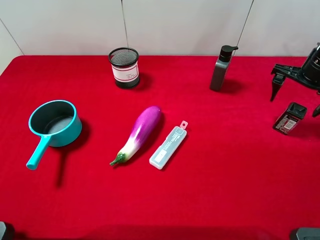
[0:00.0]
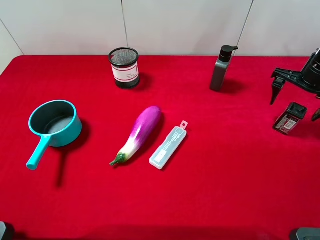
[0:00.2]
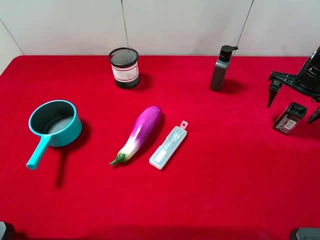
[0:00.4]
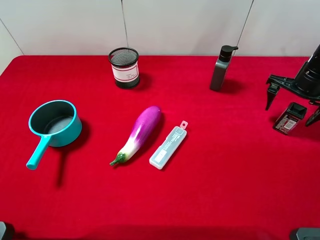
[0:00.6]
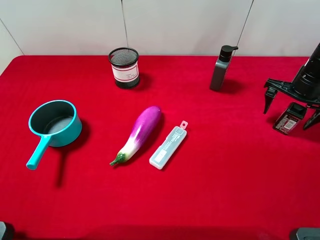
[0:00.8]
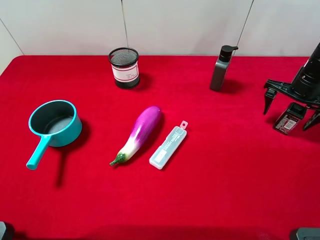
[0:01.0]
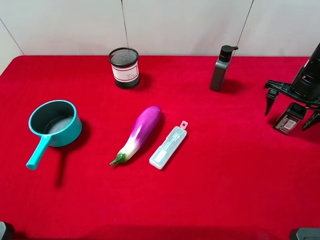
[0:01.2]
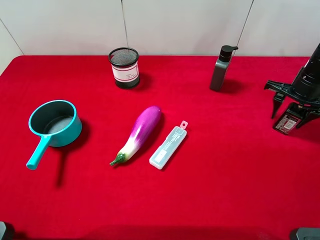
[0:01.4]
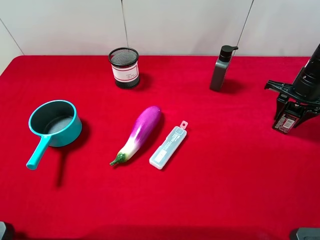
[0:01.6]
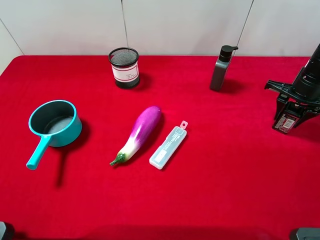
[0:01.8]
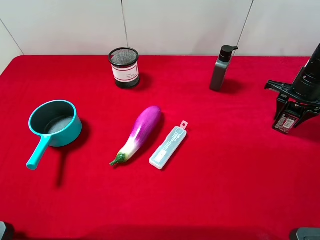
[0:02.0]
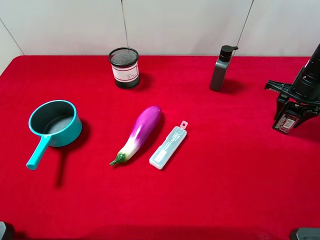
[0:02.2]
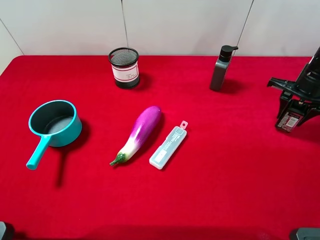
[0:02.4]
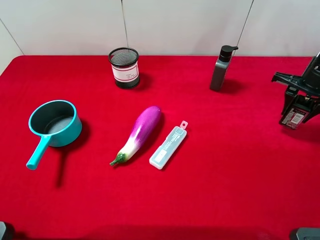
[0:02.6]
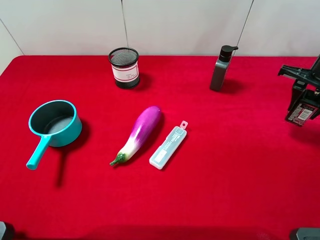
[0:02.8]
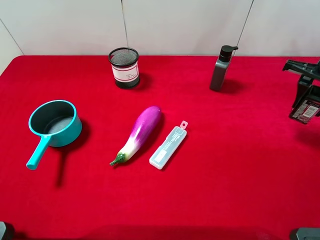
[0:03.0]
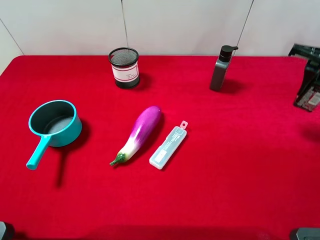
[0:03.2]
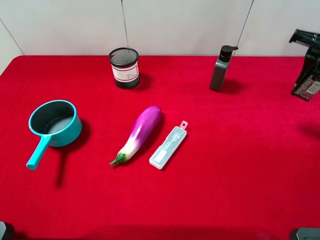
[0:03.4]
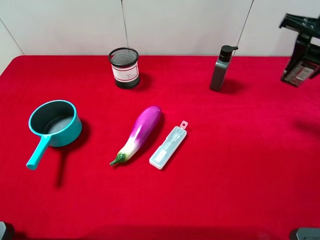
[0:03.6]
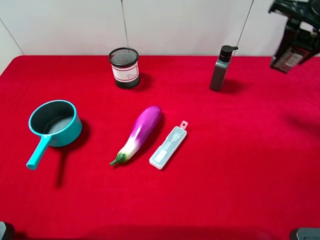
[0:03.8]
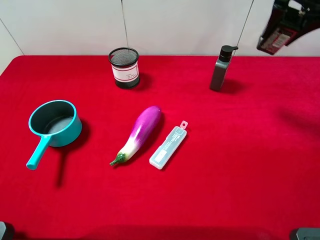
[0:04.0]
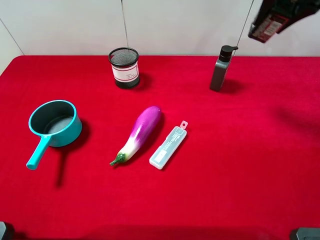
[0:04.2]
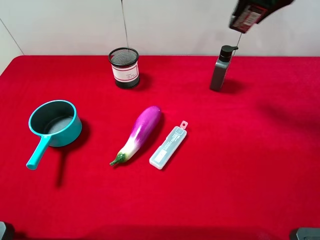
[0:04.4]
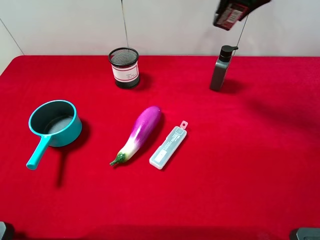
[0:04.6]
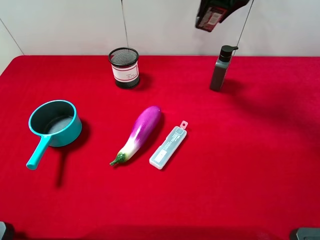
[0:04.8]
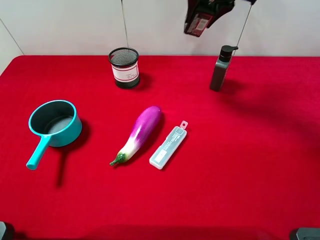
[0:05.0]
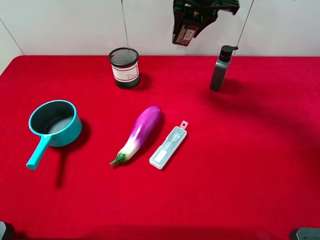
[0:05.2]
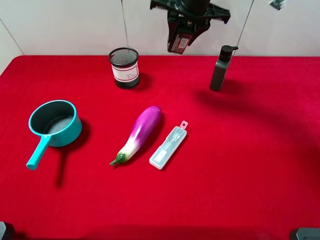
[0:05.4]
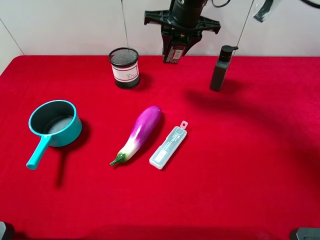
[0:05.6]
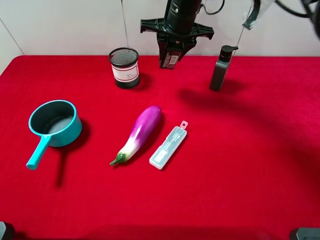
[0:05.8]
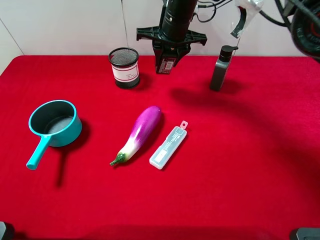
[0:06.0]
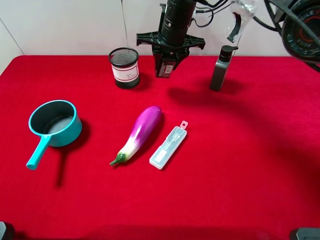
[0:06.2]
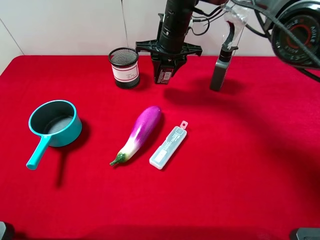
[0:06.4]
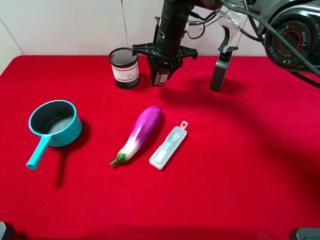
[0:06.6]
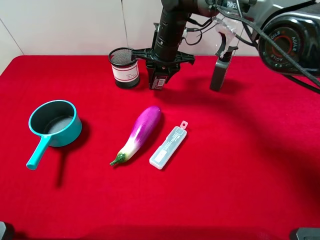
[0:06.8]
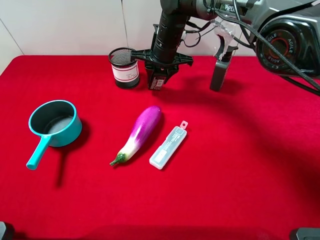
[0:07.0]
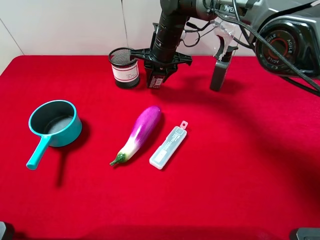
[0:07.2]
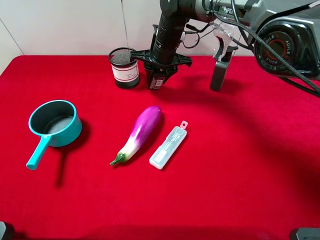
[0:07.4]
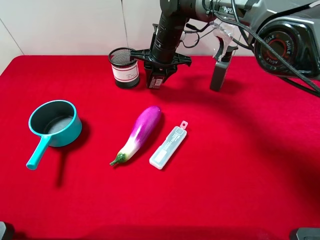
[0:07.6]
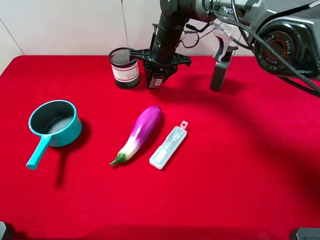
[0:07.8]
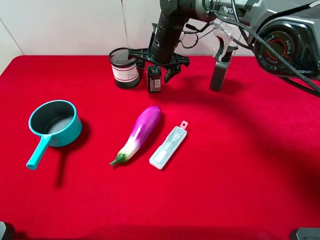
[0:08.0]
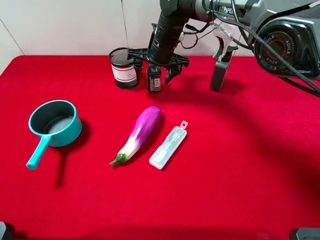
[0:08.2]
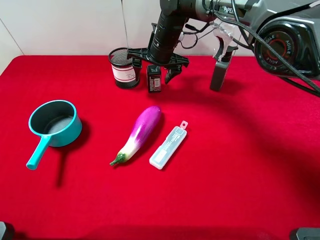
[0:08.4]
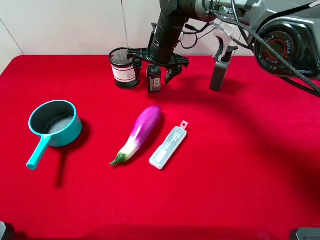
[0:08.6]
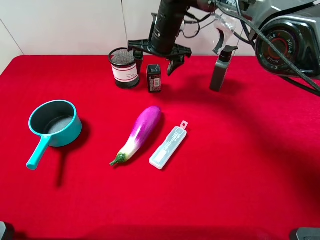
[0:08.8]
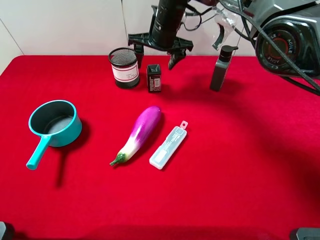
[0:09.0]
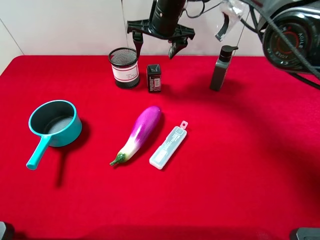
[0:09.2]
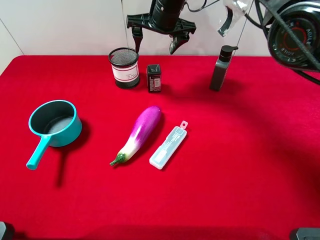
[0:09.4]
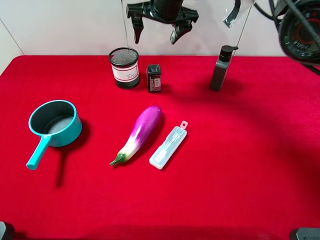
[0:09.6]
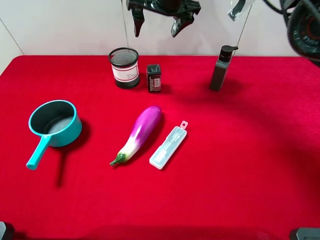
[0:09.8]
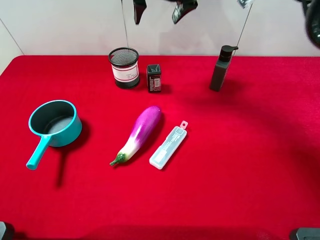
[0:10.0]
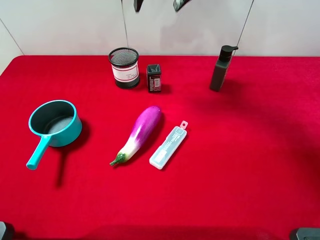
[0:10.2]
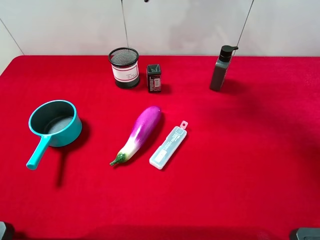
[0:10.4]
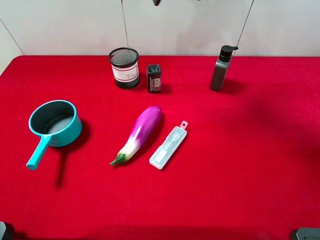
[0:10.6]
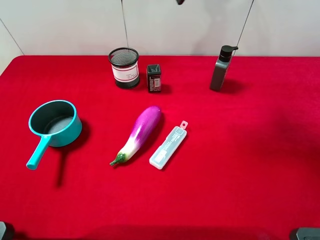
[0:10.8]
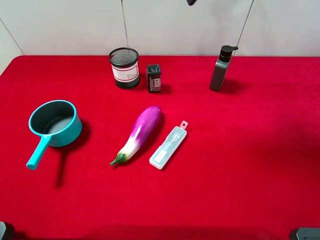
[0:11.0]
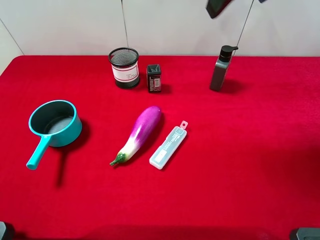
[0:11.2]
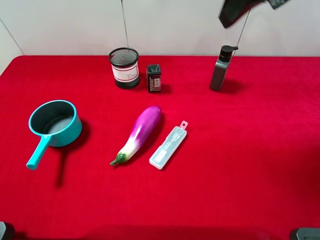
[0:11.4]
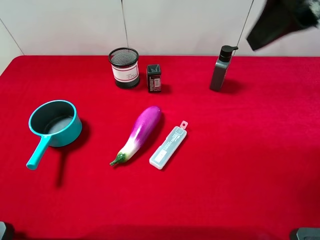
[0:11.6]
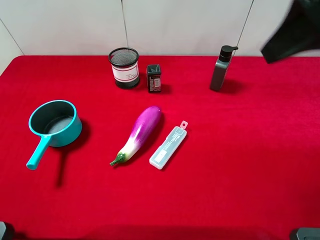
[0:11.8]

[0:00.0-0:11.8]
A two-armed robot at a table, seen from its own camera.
Task of the whole recording: the gripper move the object.
Step, 2.2 to 9.0 s: Place the square chewing gum on the table with the right gripper.
0.0 to 1.4 s: The right gripper closes up.
1.4 to 3.0 s: The right gripper travels upward by about 10 cm.
3.0 to 4.4 s: The right gripper goes about 20 cm to the left and upward.
4.4 to 6.0 s: The right gripper travels to the left, downward and forward by some 20 cm.
6.0 to 7.4 s: The right gripper shifts approximately 5 cm downward.
7.4 to 8.8 s: The right gripper opens up.
8.8 to 10.4 s: The right gripper moves upward, some 20 cm.
10.4 to 11.8 s: The right gripper moves backward and to the right, approximately 25 cm.

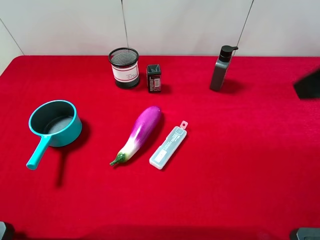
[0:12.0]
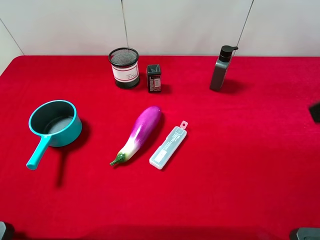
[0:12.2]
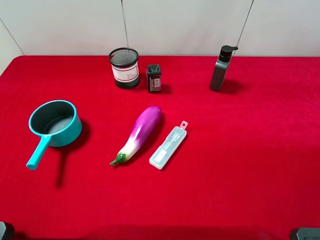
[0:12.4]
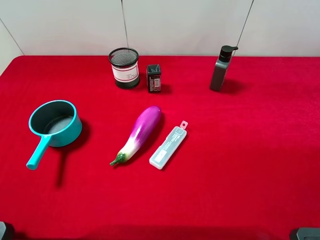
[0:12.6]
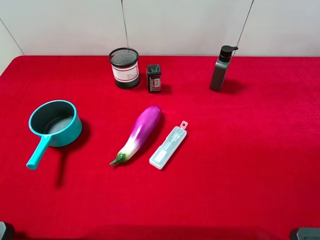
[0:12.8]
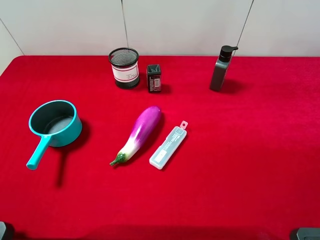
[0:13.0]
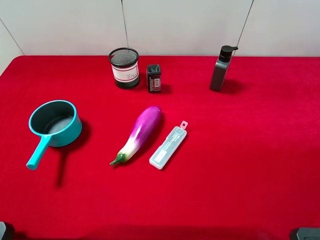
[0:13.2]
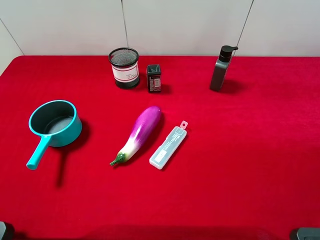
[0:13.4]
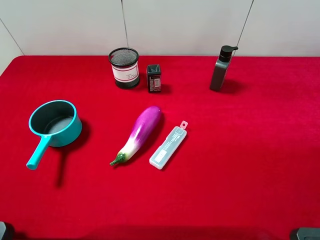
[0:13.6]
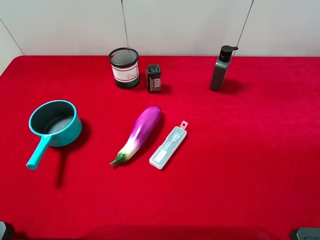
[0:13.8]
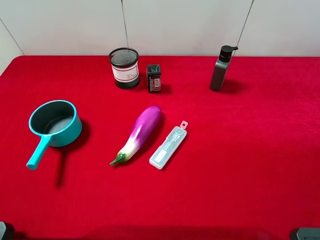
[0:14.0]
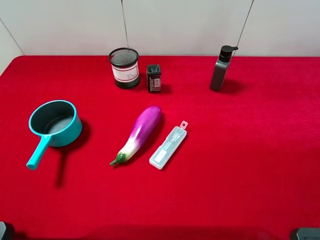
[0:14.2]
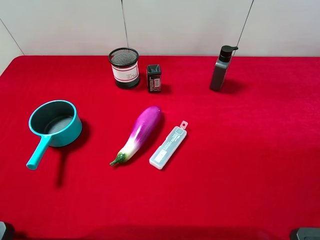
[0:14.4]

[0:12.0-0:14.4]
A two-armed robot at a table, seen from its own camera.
Task of the whole recording: the gripper move the object.
12.0 to 13.2 s: The right gripper shifts approximately 15 cm backward, downward and to the right.
13.2 to 14.4 s: Both grippers stay put.

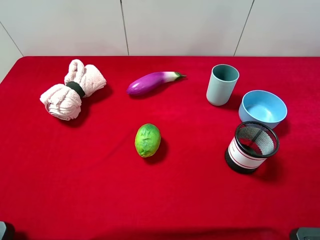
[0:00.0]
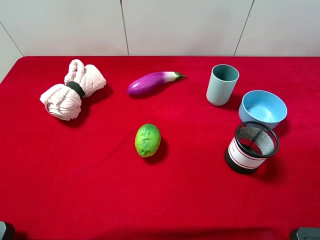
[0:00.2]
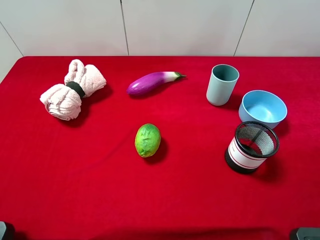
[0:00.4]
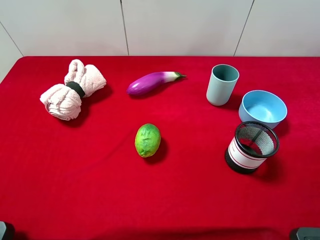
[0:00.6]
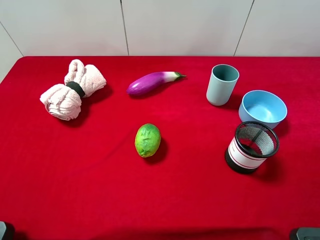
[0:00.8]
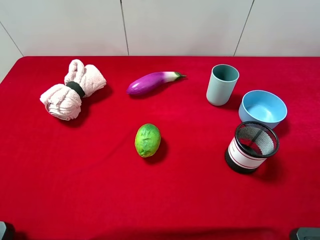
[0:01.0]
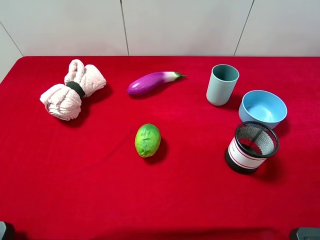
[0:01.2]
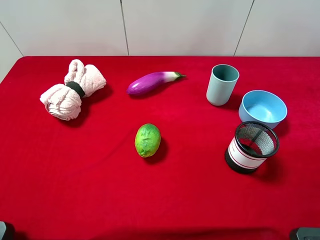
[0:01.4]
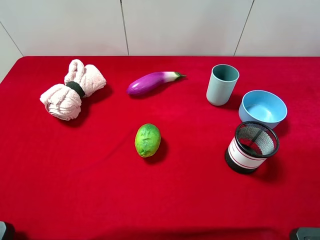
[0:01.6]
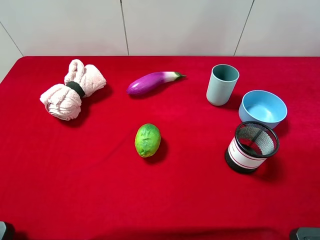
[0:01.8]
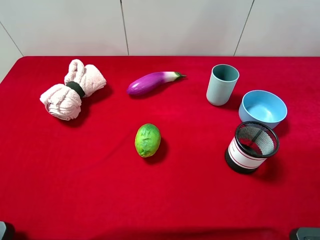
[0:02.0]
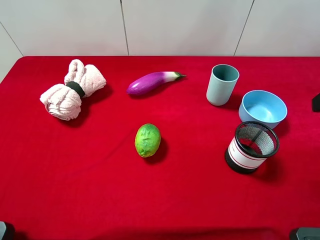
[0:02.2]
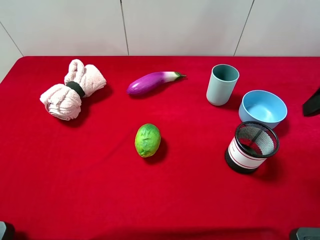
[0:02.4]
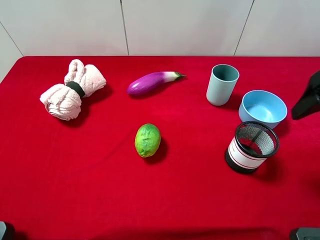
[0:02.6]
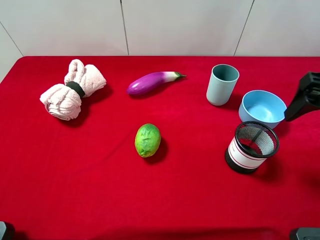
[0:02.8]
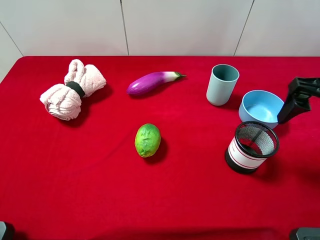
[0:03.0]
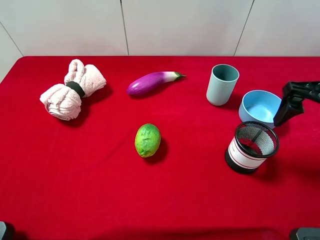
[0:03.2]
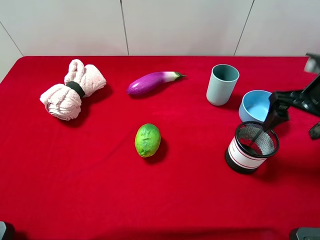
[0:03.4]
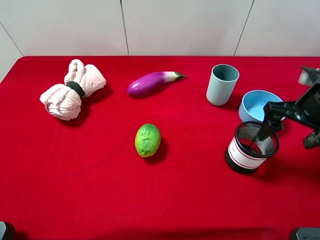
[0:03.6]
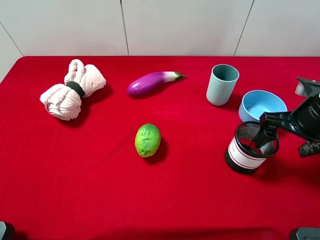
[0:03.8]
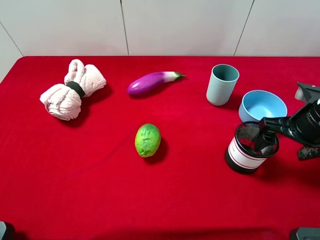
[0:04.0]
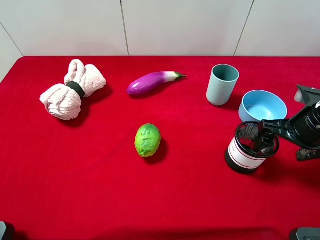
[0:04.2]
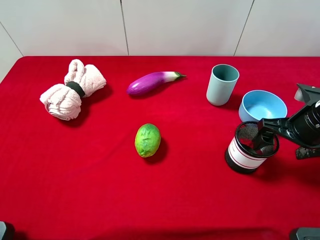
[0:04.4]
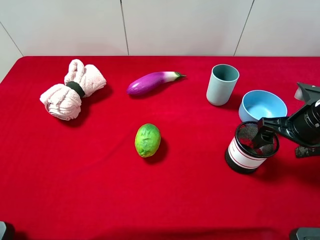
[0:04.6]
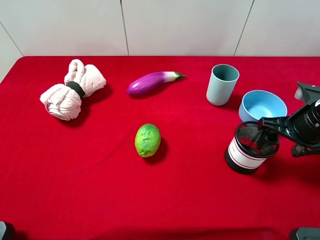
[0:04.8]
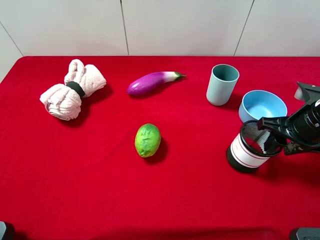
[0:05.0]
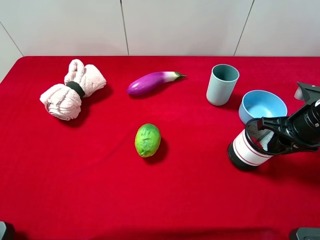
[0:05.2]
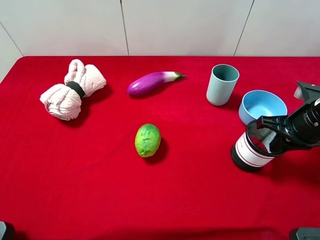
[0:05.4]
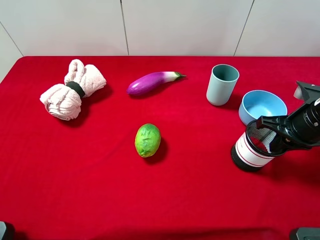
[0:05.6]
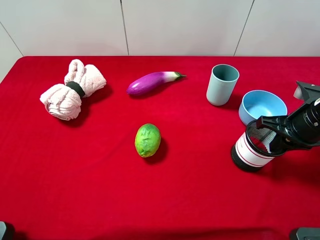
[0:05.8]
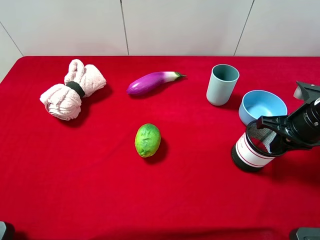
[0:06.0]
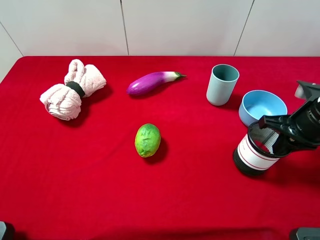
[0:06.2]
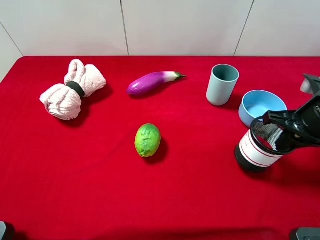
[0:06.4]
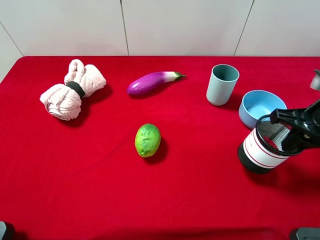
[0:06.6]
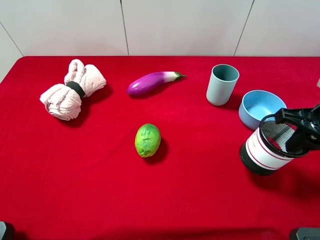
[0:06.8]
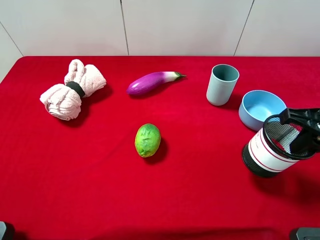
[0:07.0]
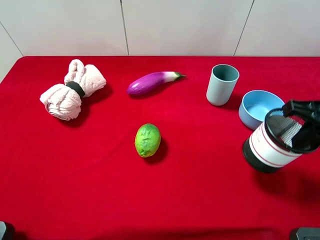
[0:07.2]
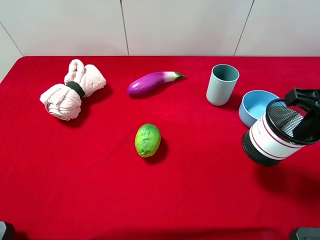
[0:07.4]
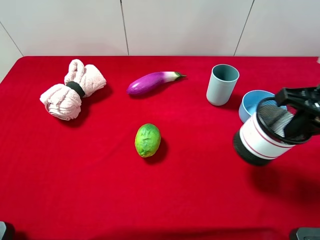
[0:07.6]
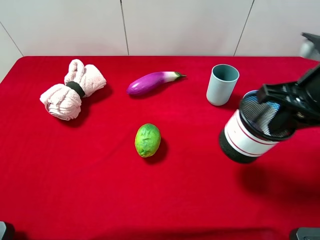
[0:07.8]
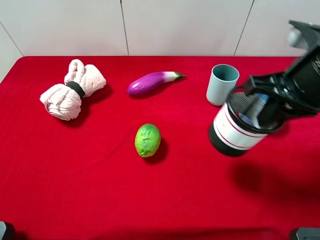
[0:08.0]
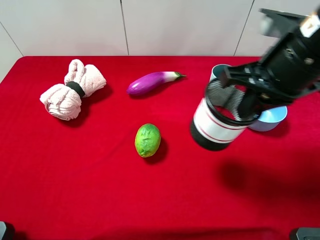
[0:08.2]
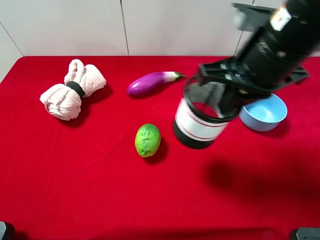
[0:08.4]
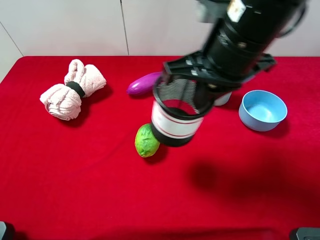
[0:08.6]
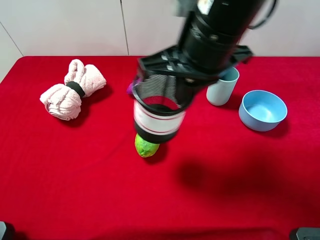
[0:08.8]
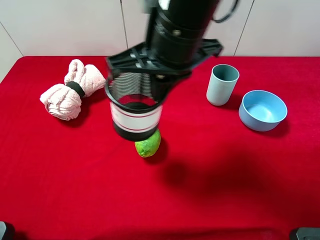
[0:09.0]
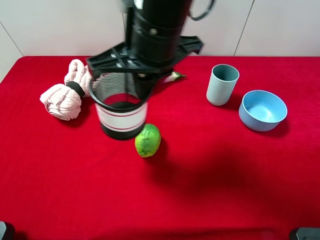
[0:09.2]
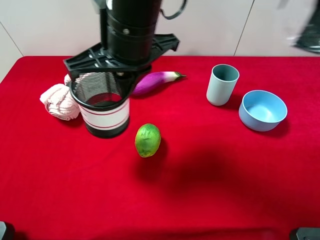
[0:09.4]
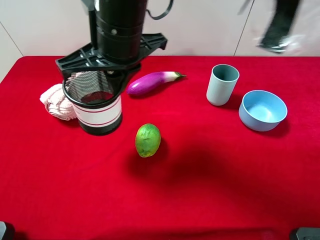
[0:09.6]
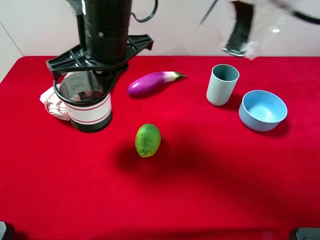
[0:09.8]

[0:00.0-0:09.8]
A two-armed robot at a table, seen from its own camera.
Task of the whole recording: the gripper move the object.
Step, 0.0 to 5.6 s: Grasp the pen container with the right gripper.
1.4 to 2.8 s: The right gripper shifts some 15 cm forward and downward.
2.8 to 4.2 s: The right gripper is displaced downward by approximately 10 cm.
4.2 to 5.6 s: The right gripper closes.
5.6 to 7.0 s: The right gripper travels upward by roughly 5 cm.
7.0 to 8.4 s: The right gripper shifts some 15 cm to the left and upward.
8.4 to 9.8 s: The right gripper moves to the left, approximately 20 cm.
